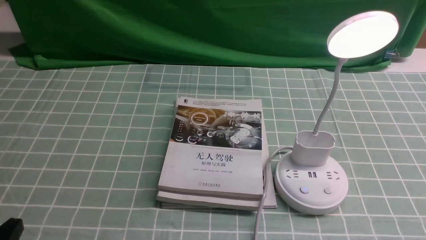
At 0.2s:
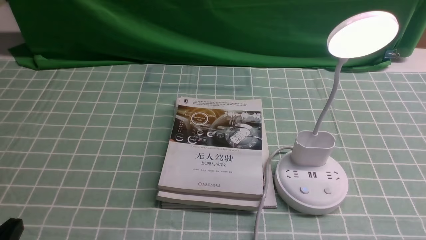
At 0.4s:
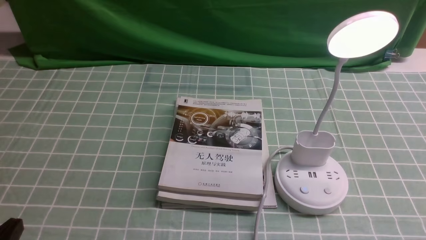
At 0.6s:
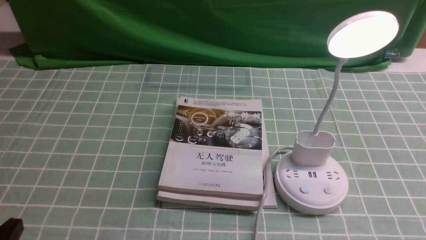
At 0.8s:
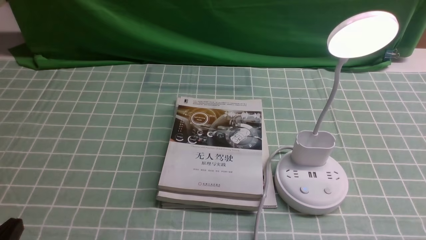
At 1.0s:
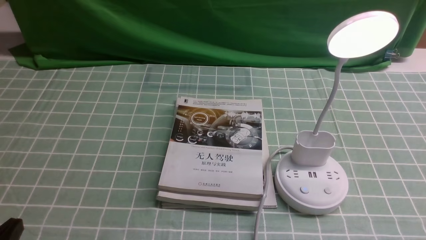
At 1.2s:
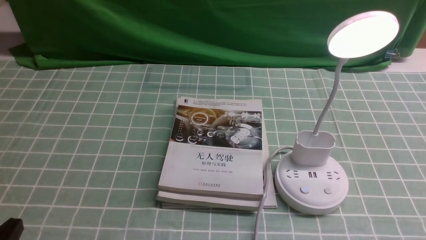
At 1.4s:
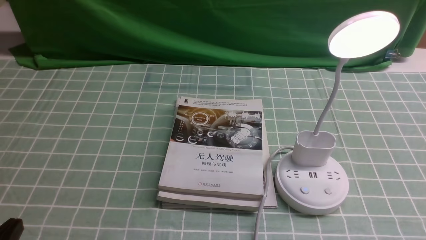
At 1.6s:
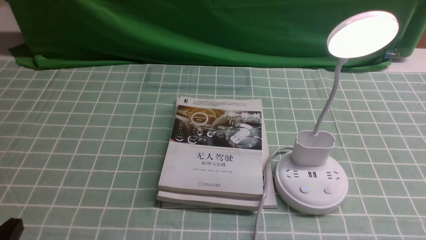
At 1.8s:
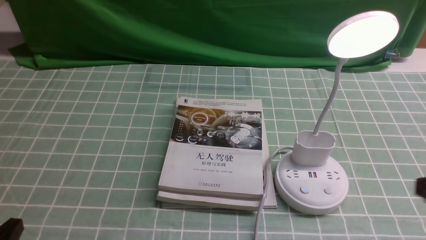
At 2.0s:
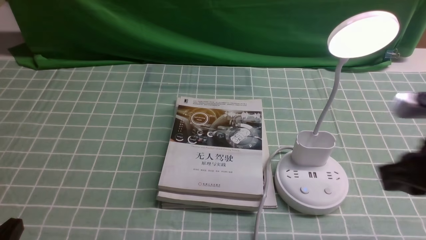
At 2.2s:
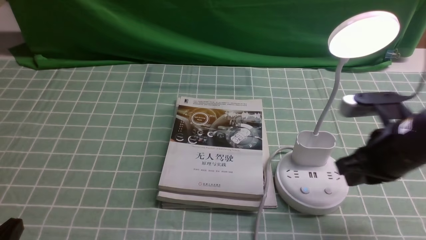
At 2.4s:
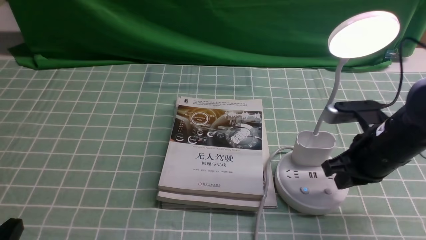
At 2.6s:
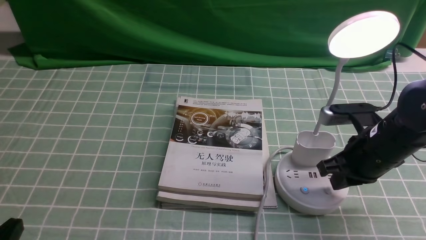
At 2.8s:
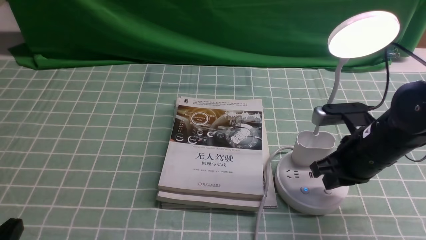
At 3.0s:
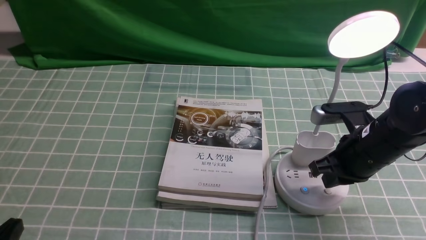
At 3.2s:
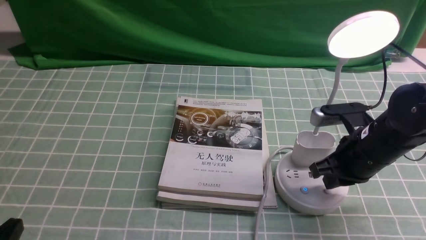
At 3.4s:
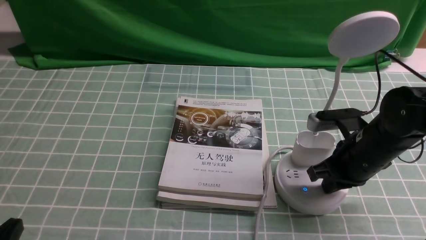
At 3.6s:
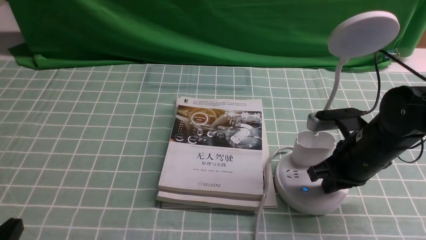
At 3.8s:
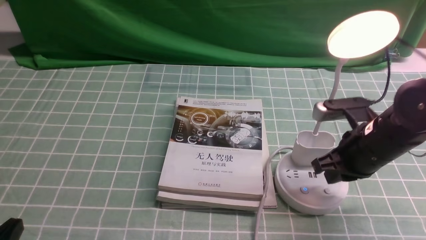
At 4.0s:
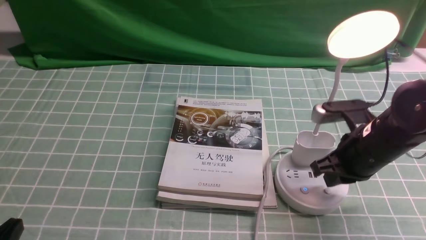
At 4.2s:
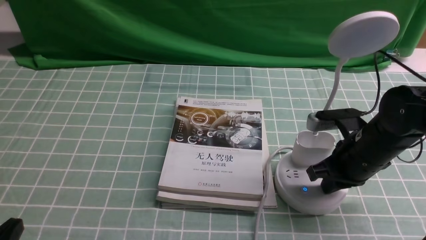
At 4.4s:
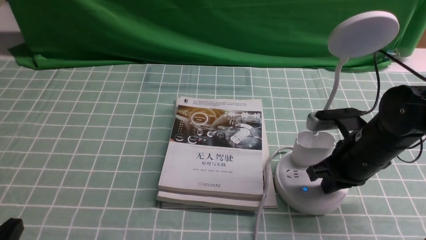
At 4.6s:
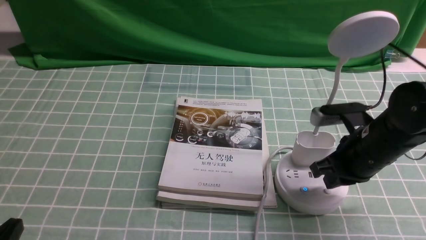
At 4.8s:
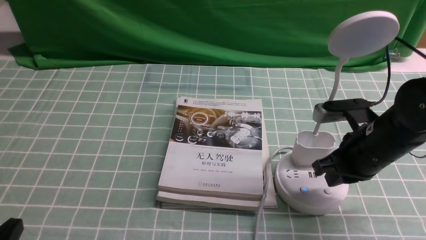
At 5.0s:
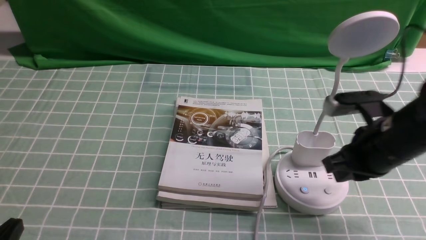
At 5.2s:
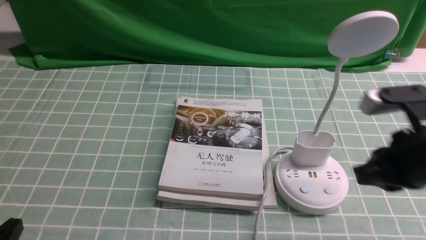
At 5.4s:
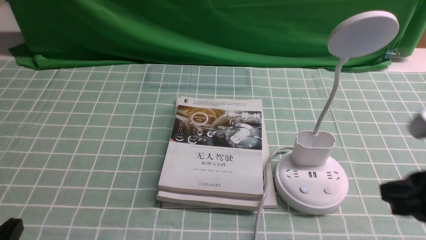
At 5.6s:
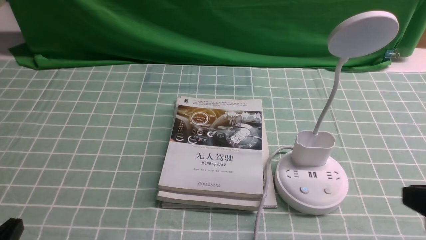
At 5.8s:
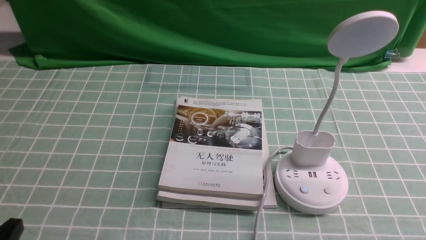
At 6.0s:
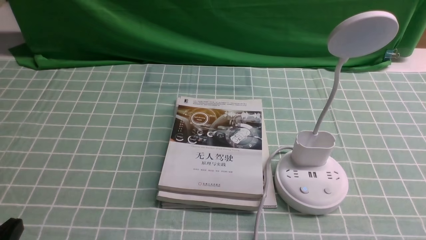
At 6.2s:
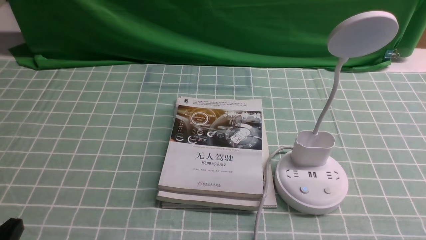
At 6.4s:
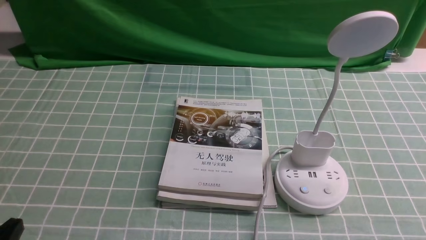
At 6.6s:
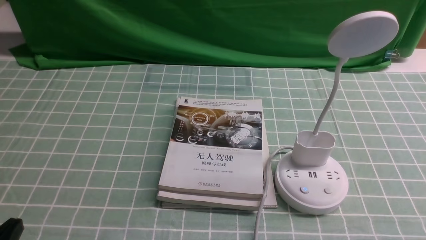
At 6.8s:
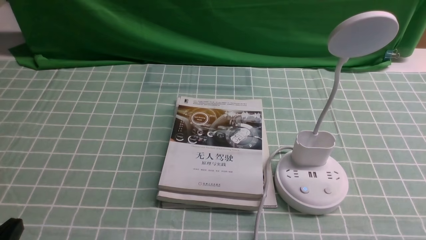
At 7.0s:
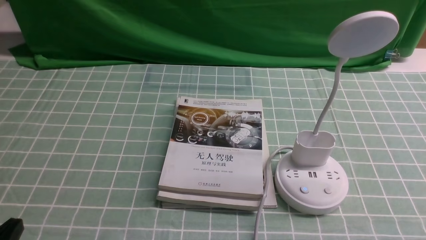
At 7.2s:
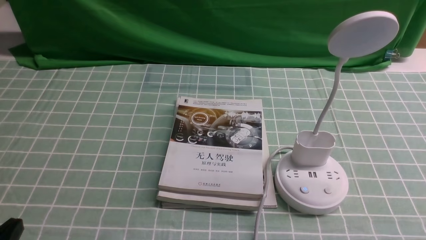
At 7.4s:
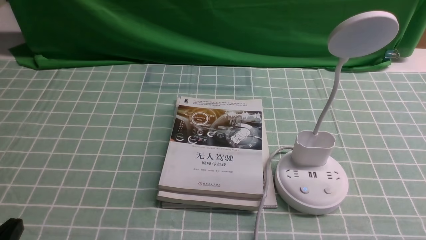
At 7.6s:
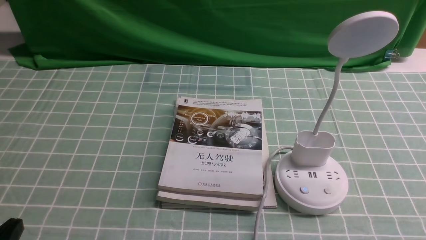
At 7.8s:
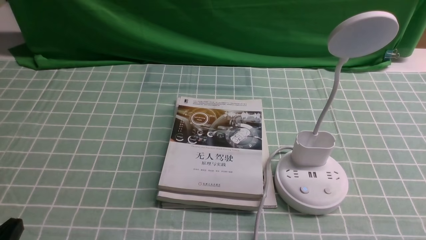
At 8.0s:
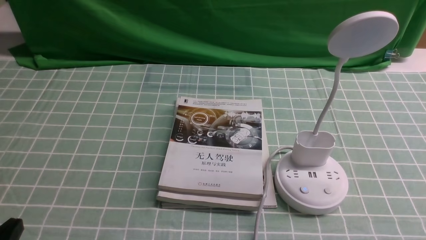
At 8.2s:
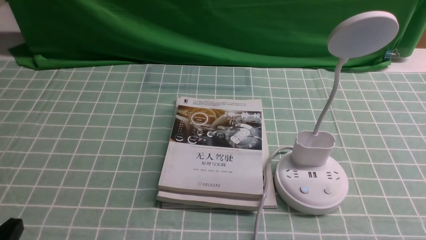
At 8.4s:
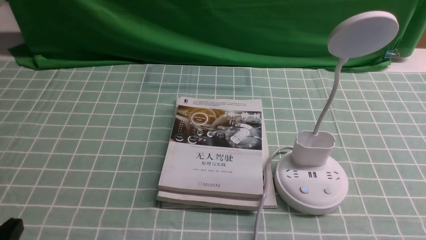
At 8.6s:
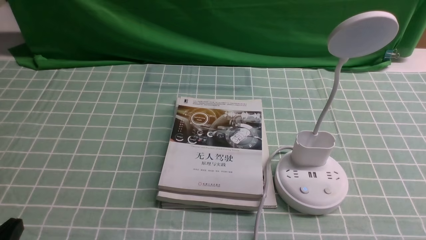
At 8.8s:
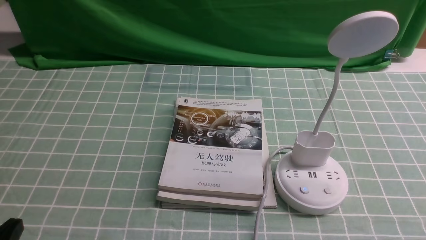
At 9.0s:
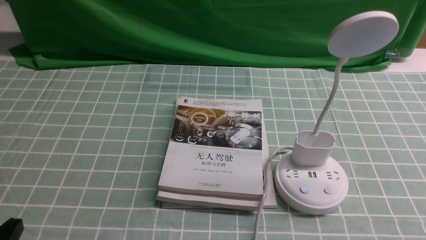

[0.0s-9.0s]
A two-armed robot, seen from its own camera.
Task of the whole recording: turn off the desk lamp on the blue coffee tablecloth by hand.
Step, 0.0s to 4.8s: use the right arm to press the button switch on the lamp holder.
1.6s to 3.0s: The right gripper shifts approximately 20 cm forward and to the left.
3.0s to 4.4s: Both grippers stay about where they are.
4.4s to 6.0s: The right gripper goes roughly 25 cm backward and upward.

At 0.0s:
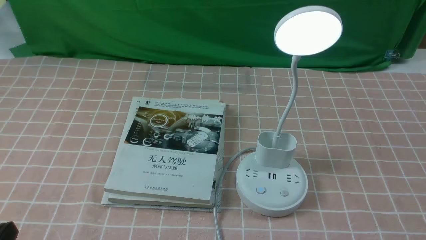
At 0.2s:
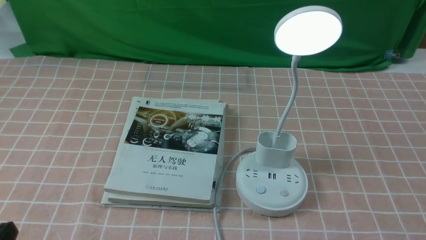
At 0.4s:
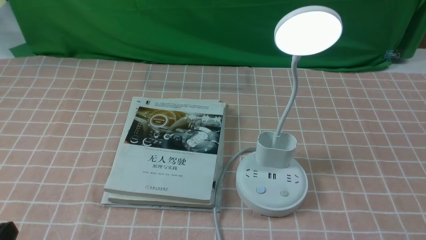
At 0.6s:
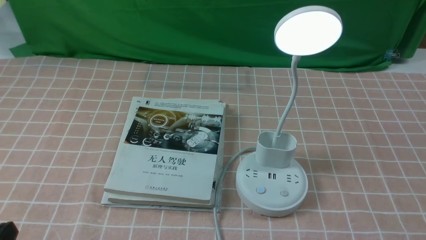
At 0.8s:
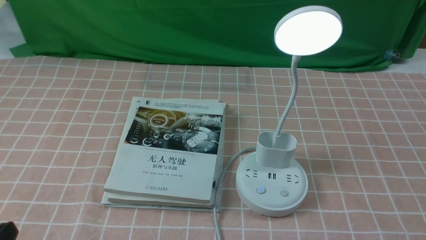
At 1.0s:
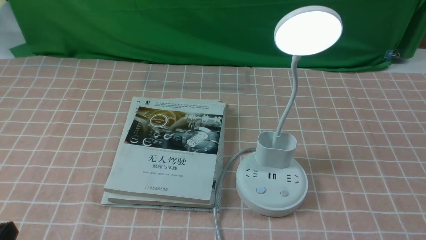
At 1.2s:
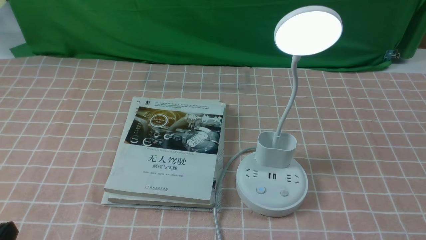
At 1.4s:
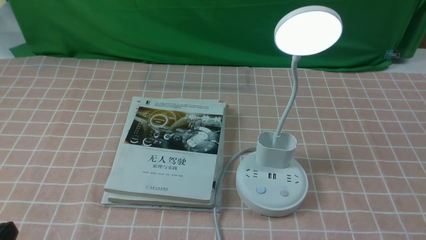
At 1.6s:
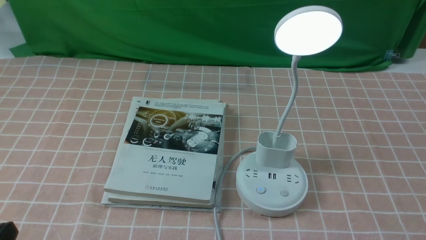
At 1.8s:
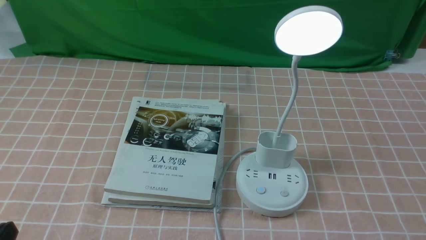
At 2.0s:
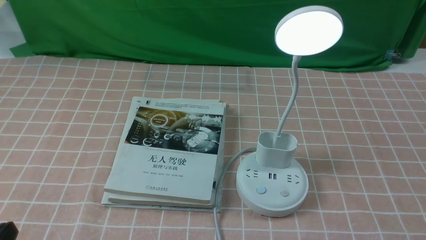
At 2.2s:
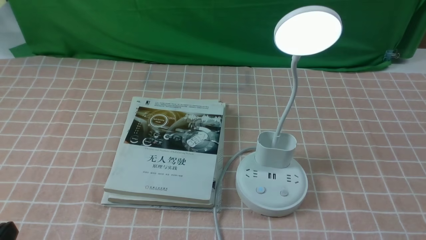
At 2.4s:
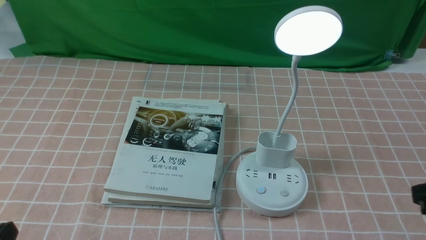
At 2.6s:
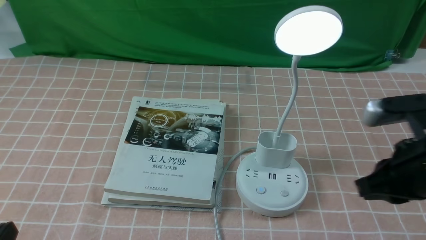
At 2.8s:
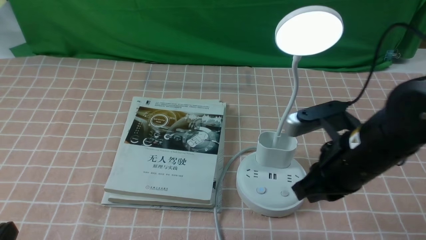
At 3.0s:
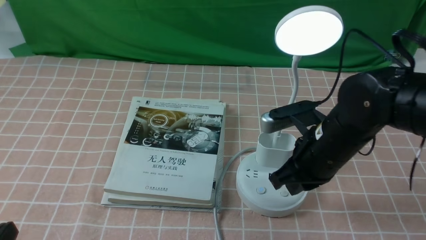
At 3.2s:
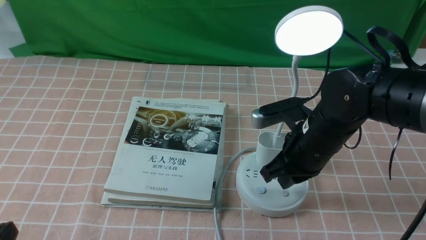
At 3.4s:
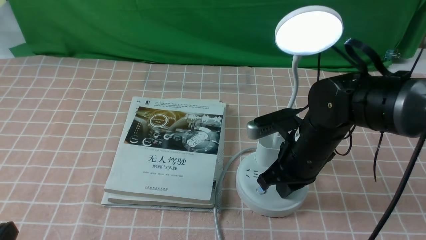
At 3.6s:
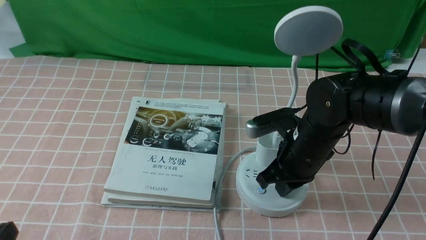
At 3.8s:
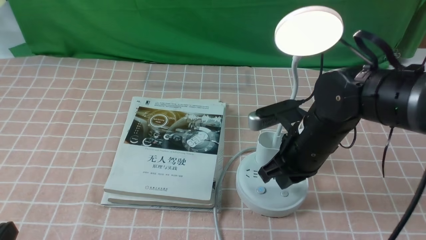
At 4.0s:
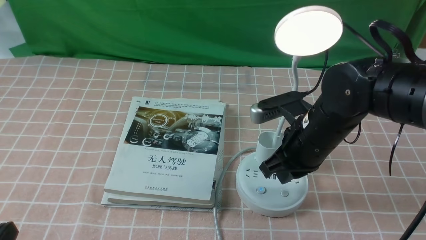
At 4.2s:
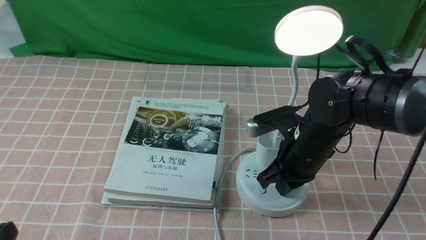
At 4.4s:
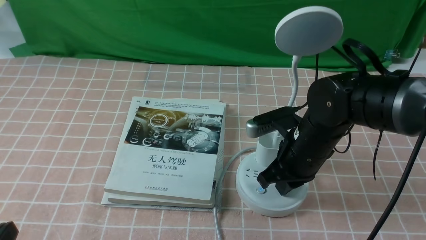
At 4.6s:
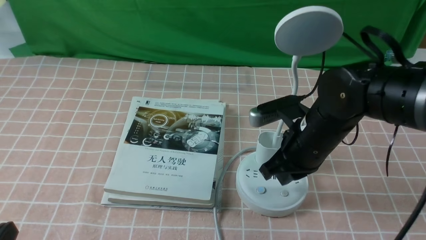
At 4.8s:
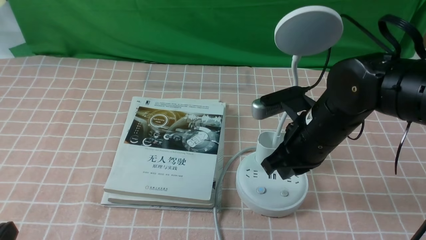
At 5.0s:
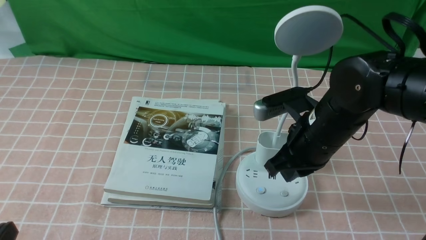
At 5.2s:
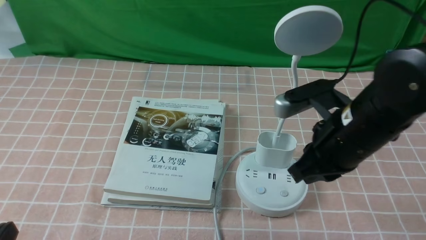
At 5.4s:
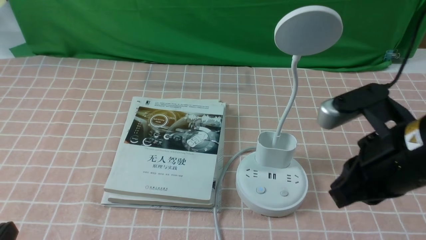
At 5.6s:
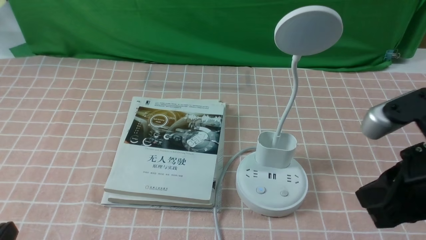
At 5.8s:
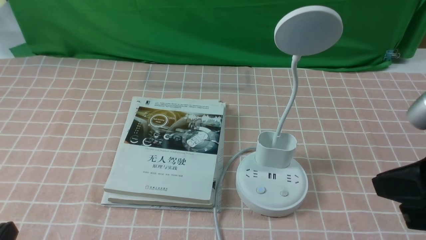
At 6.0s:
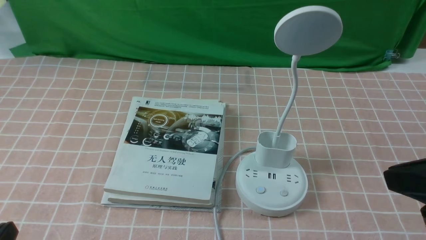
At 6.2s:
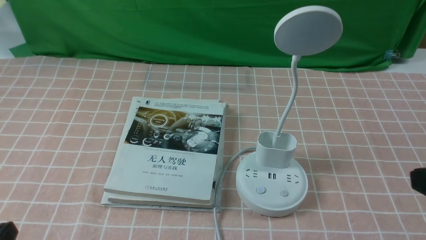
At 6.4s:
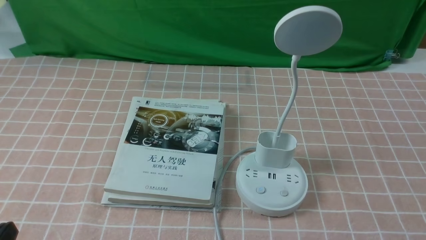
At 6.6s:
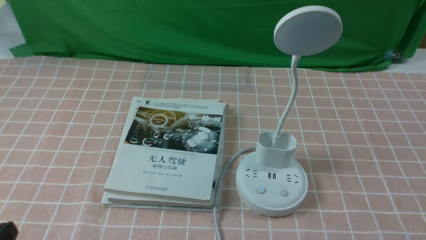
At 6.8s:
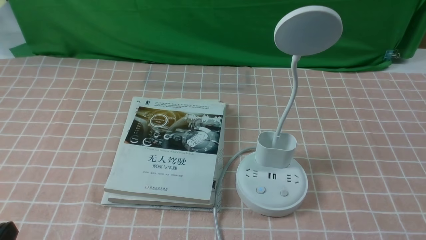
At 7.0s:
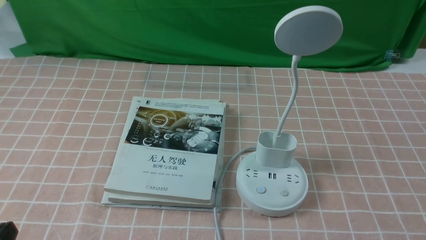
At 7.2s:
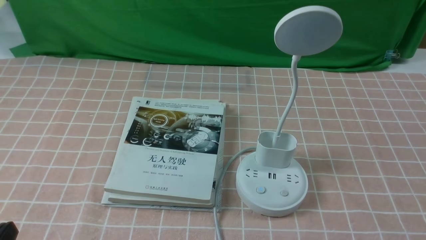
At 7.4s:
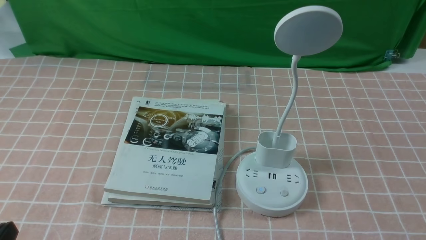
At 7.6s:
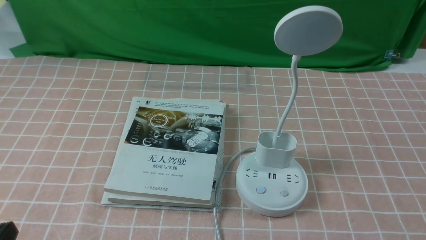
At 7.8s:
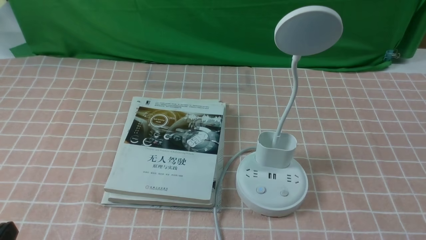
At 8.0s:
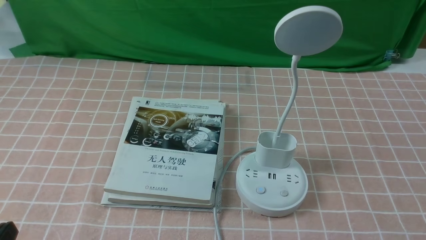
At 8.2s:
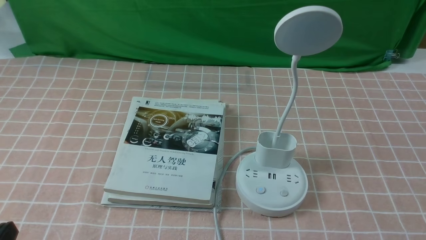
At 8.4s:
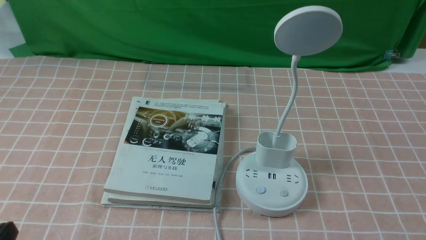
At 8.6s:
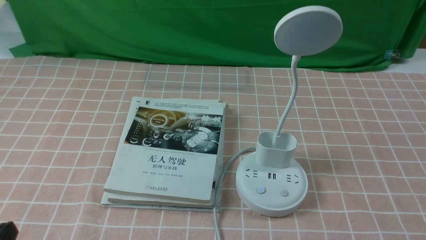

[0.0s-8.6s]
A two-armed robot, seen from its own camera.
Task of the whole recording: turn off the table lamp on the pink coffee tablecloth by hand.
Step, 0.0s to 4.6s: use the right arm to press the button switch on the lamp holder.
1.4s to 2.8s: The right gripper travels forward and to the left by about 25 cm, and closes its fingers.
2.8s to 4.4s: The right gripper shifts roughly 5 cm downward and forward.
4.4s to 5.8s: The right gripper moves backward, upward and to the right, roughly 25 cm.
5.8s to 7.2s: The right gripper is displaced downward, to the right and backward by approximately 20 cm.
